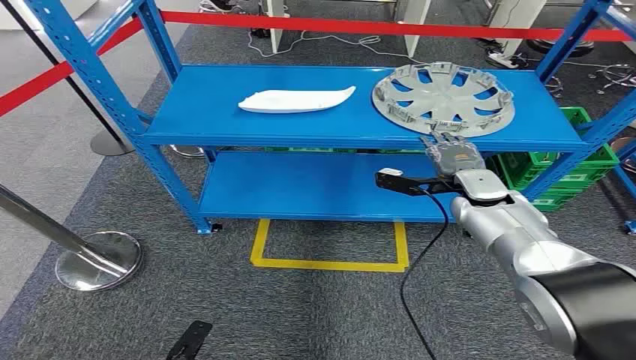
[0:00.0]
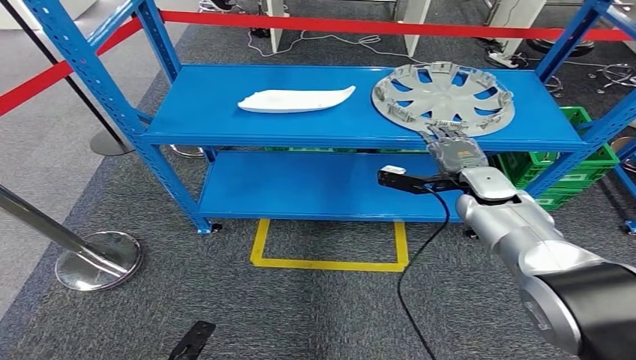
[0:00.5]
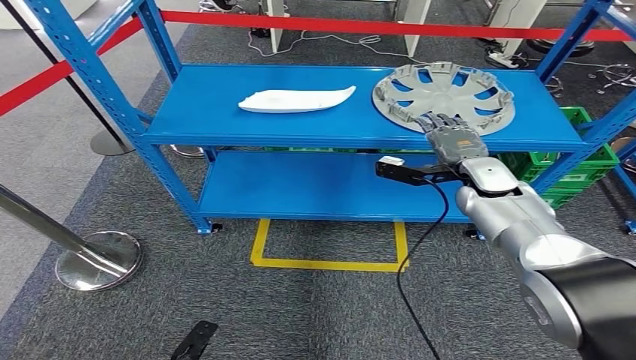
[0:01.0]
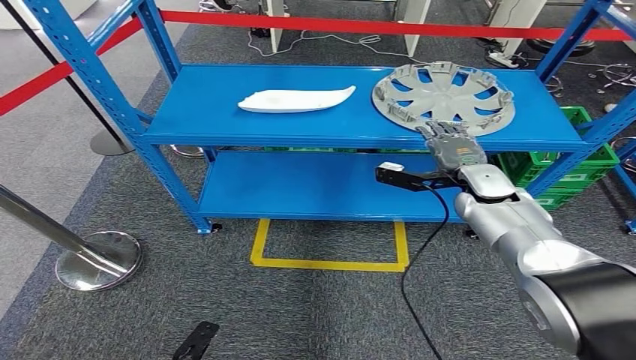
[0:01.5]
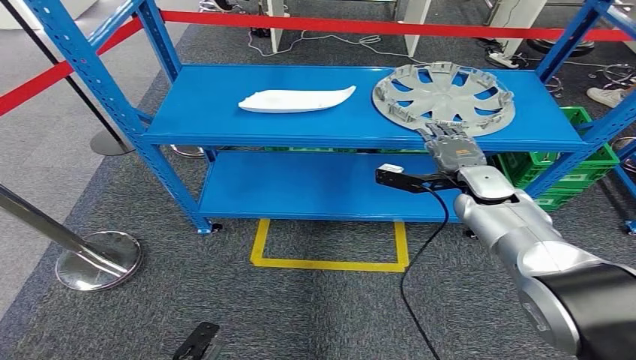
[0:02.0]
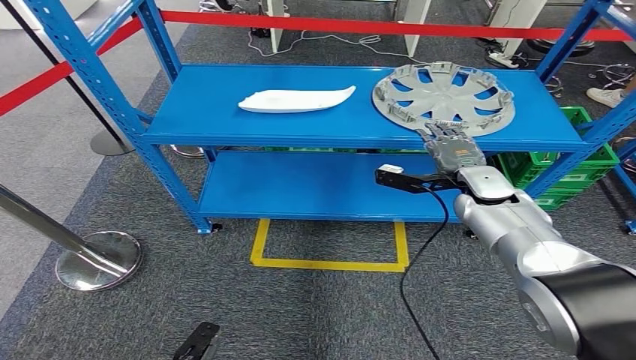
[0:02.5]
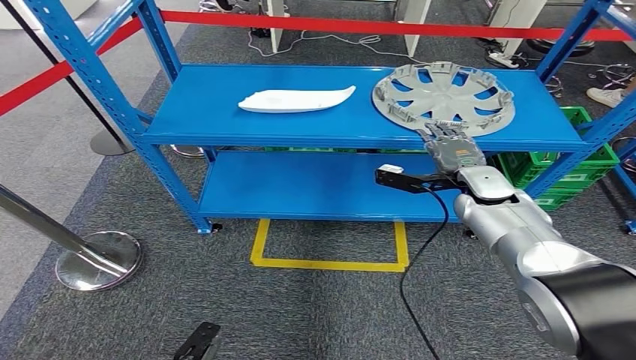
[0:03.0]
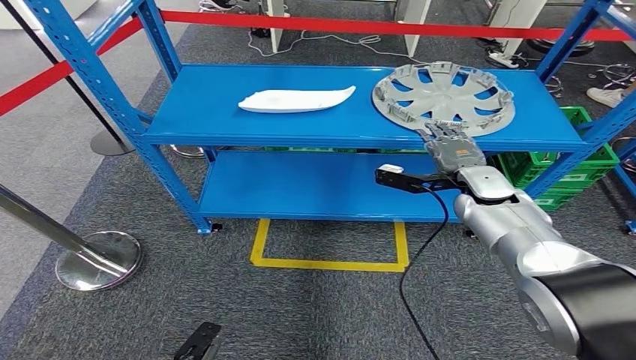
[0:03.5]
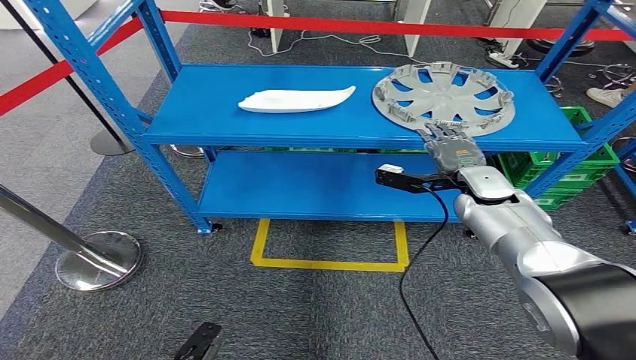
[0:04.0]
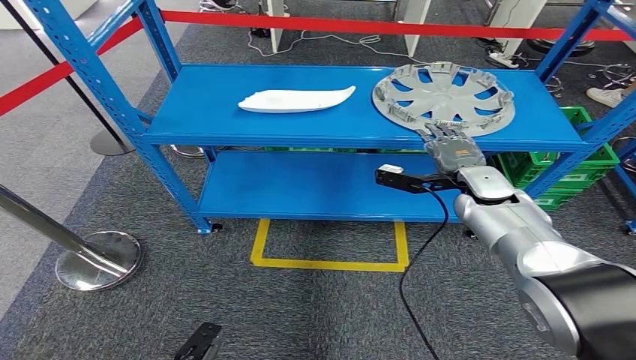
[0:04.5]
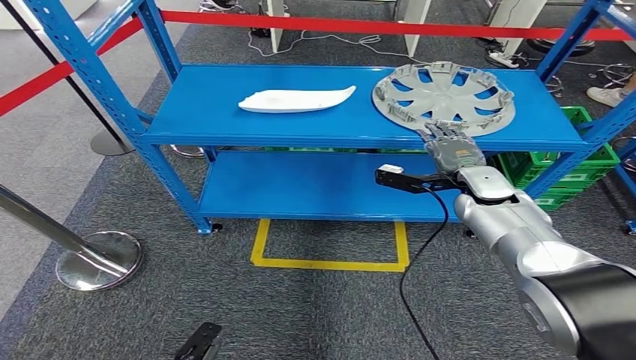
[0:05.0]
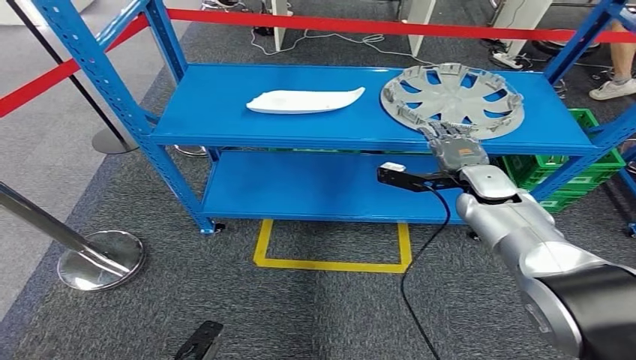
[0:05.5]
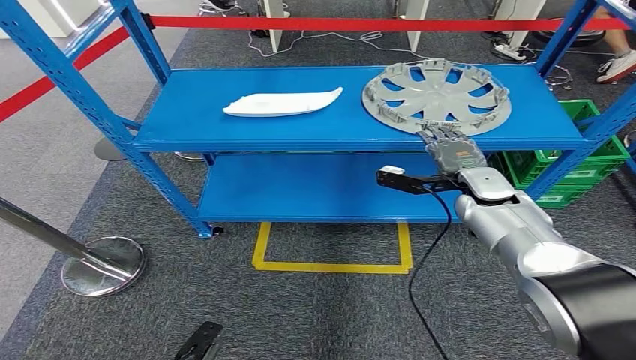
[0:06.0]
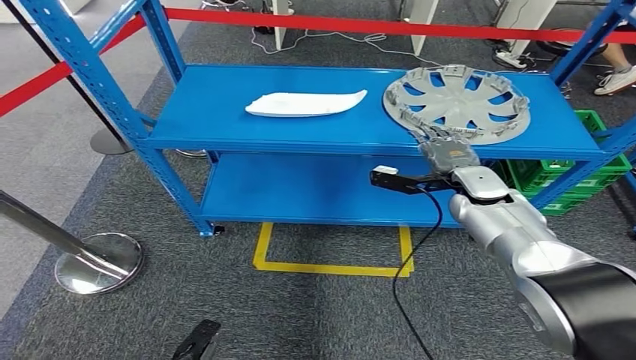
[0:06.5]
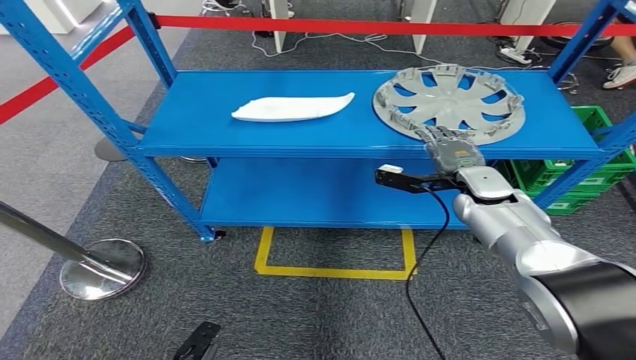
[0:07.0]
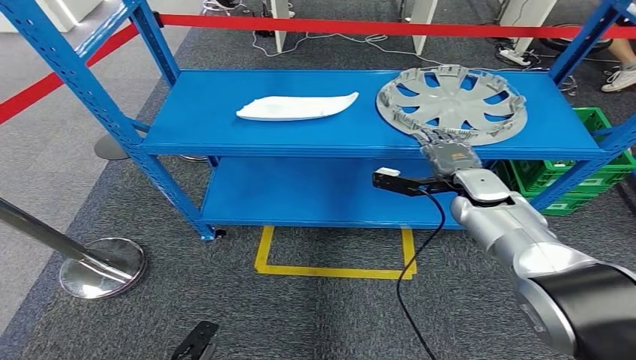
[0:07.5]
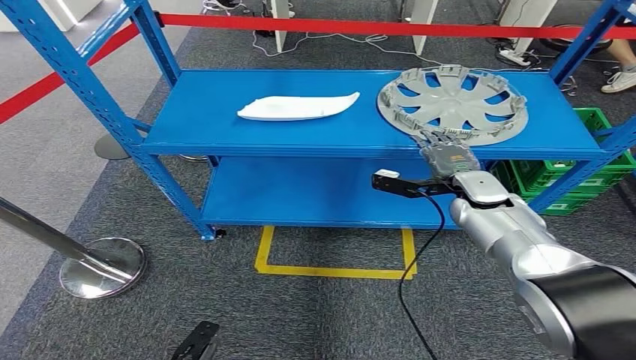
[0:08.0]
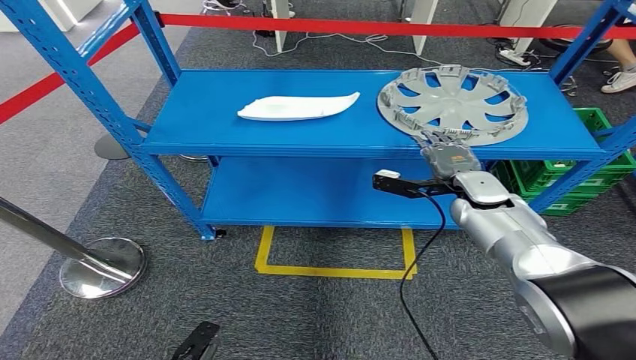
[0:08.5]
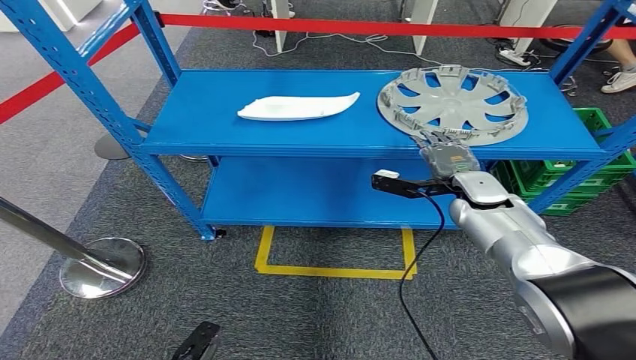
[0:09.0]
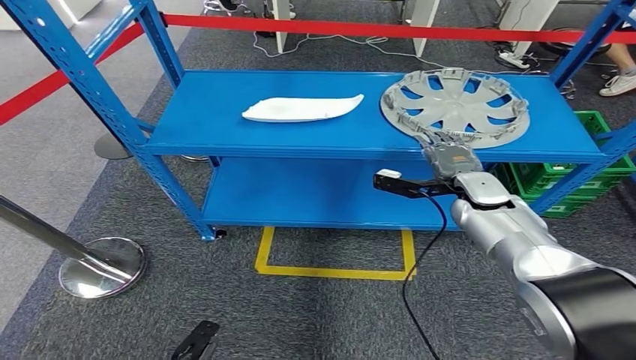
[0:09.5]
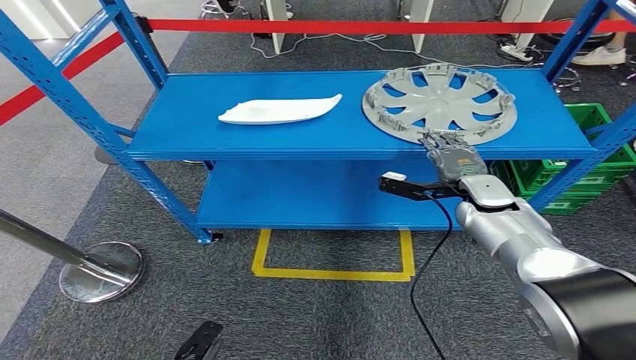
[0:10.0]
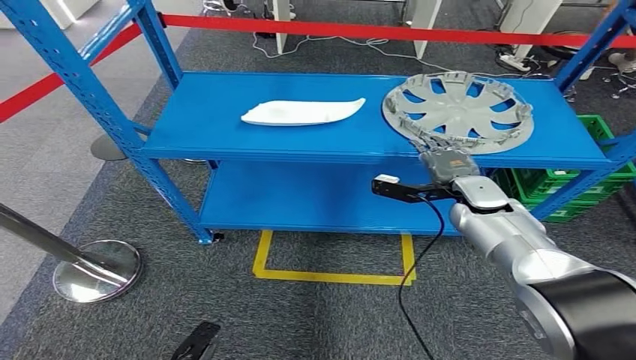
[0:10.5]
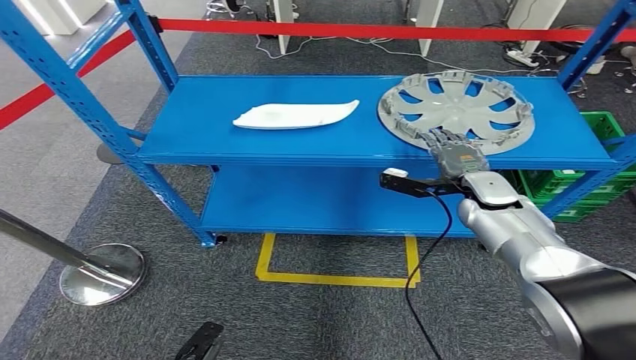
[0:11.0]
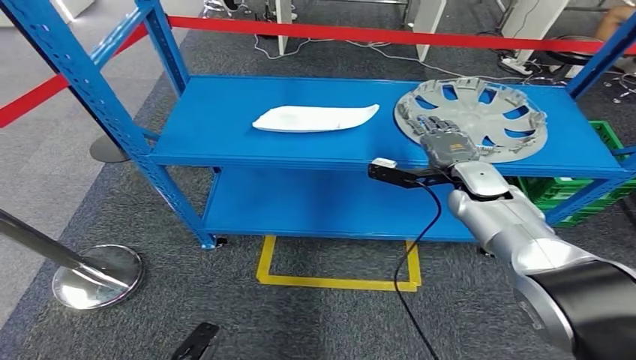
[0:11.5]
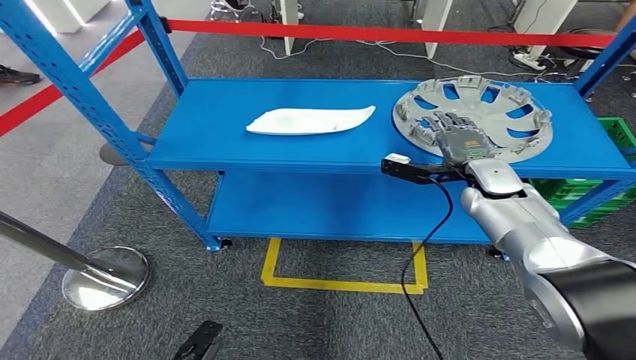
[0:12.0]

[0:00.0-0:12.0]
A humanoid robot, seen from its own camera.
0:02.0 to 0:04.0: The two hands keep their place.

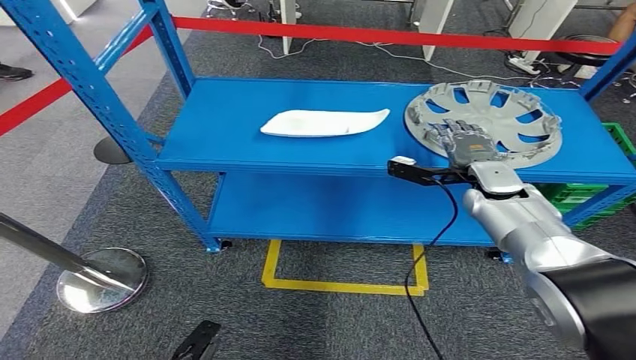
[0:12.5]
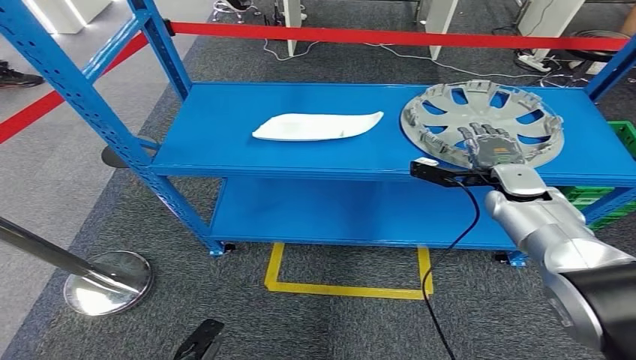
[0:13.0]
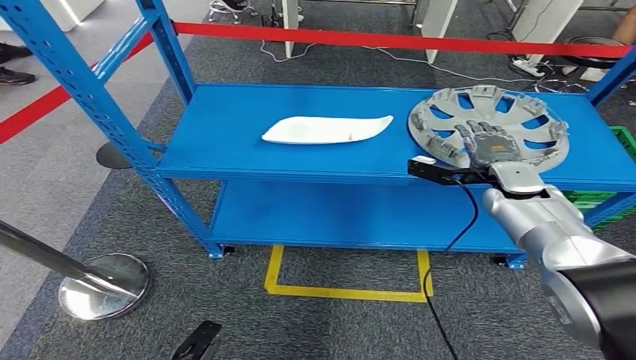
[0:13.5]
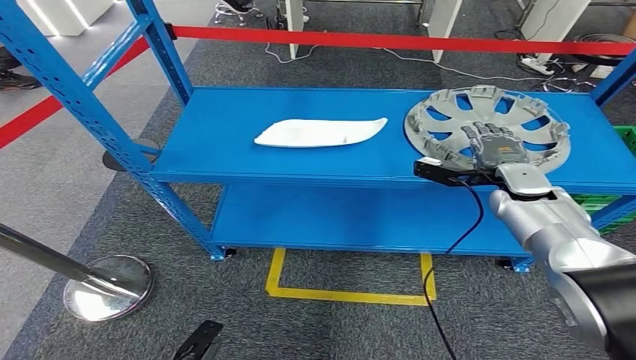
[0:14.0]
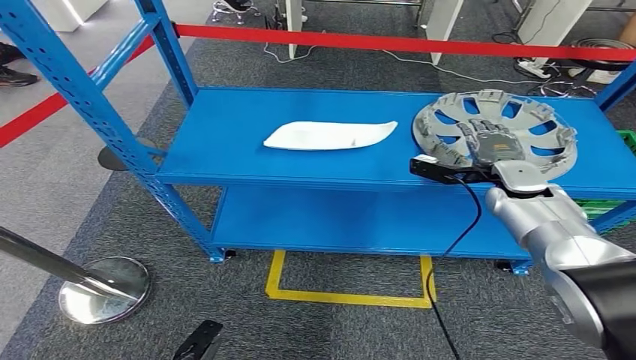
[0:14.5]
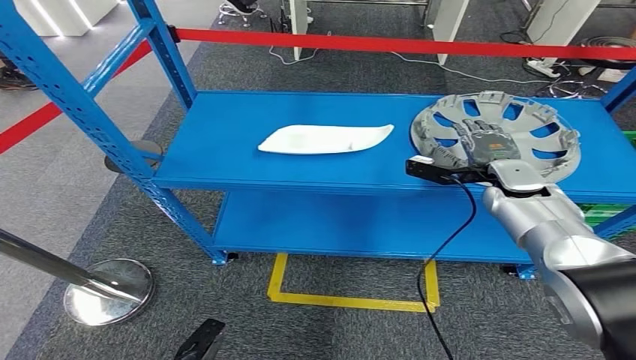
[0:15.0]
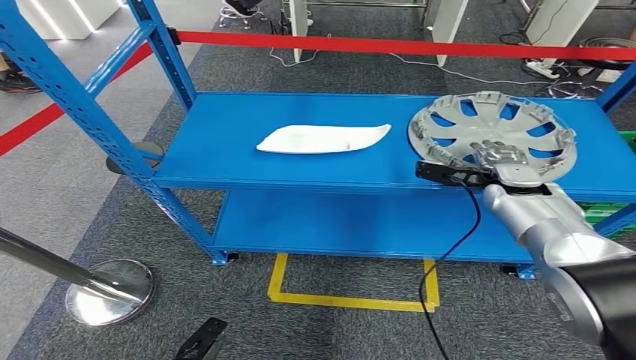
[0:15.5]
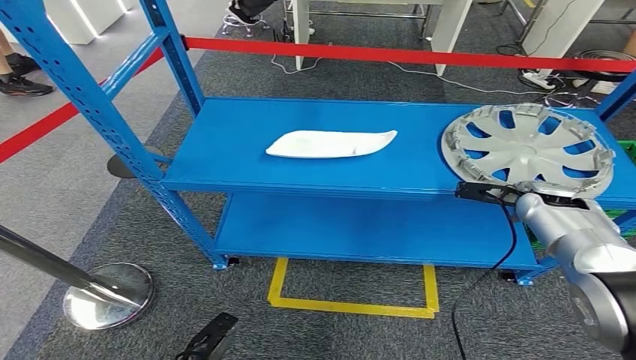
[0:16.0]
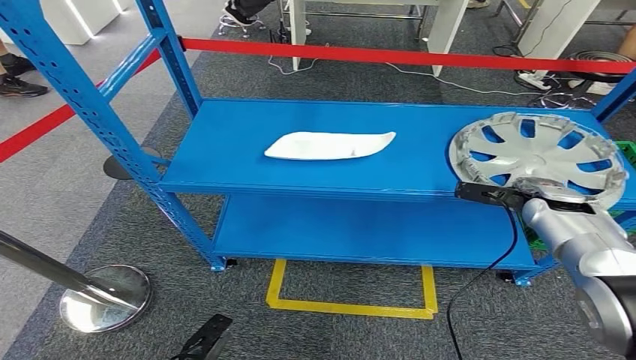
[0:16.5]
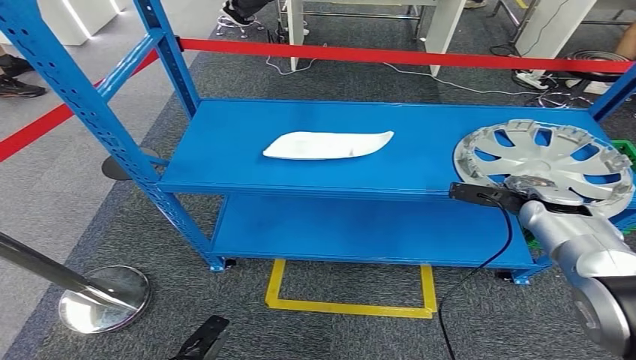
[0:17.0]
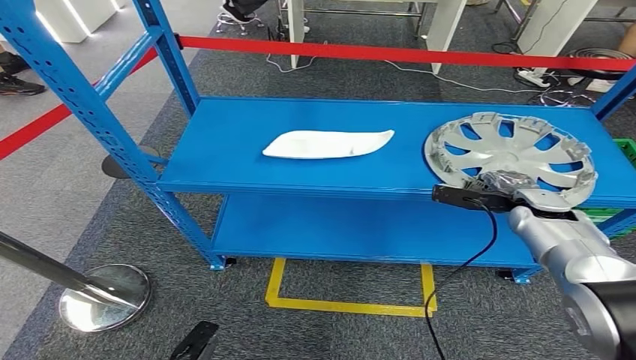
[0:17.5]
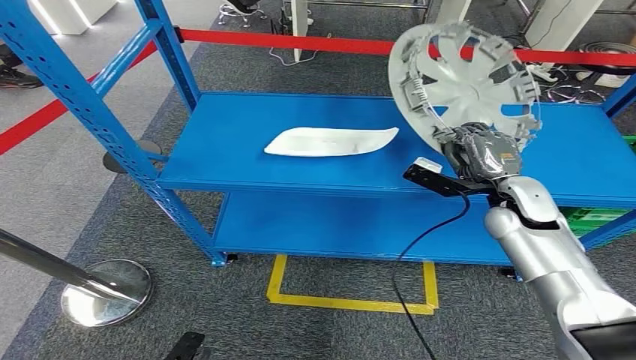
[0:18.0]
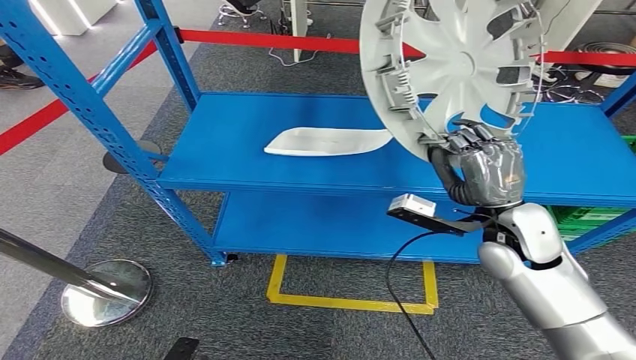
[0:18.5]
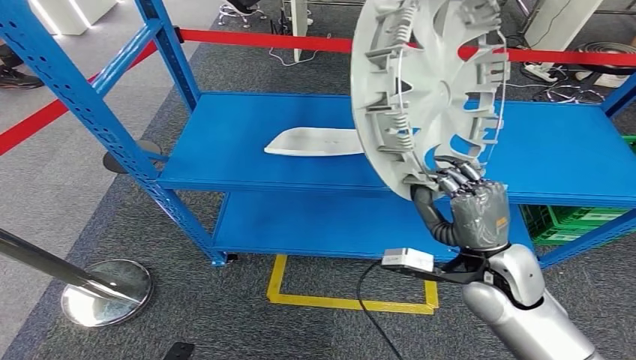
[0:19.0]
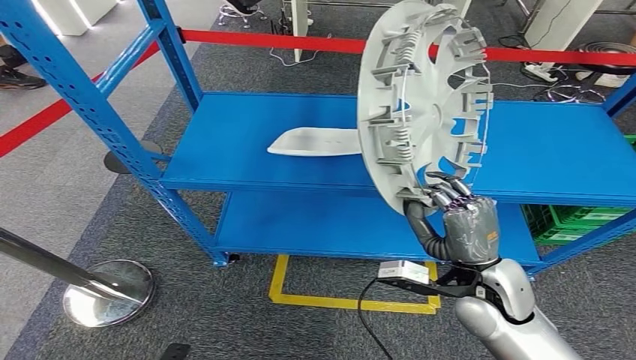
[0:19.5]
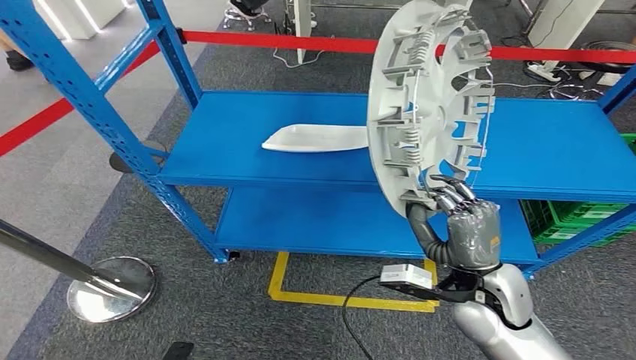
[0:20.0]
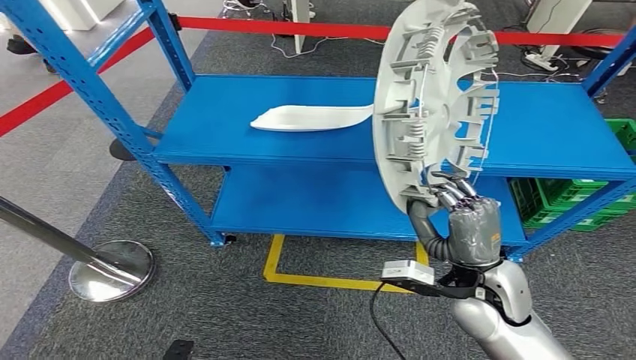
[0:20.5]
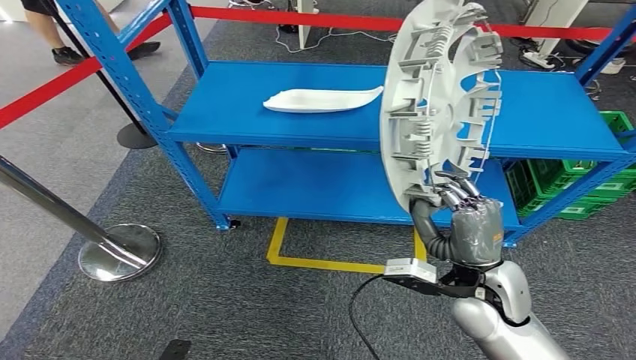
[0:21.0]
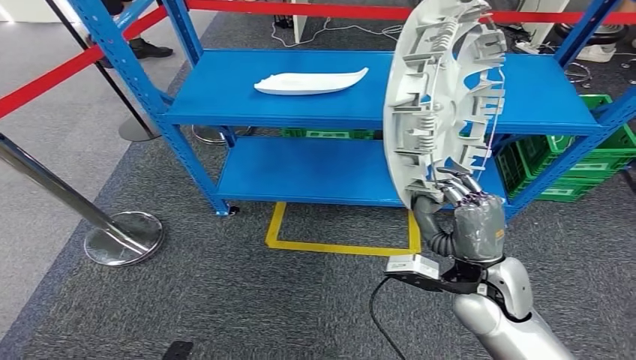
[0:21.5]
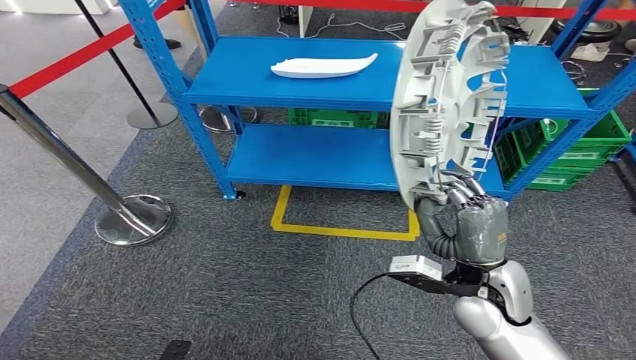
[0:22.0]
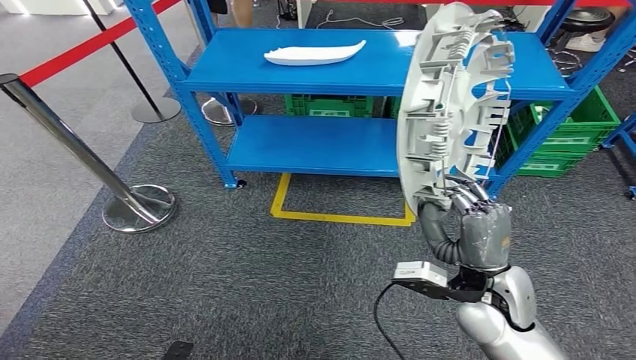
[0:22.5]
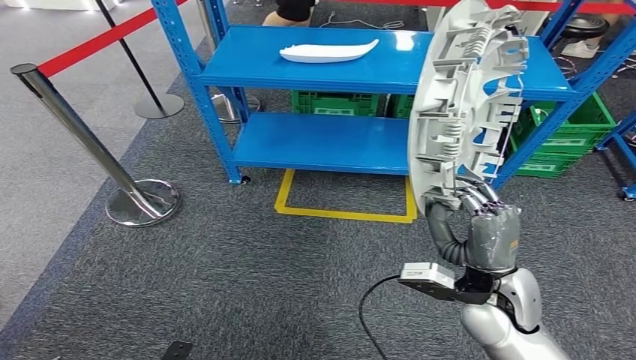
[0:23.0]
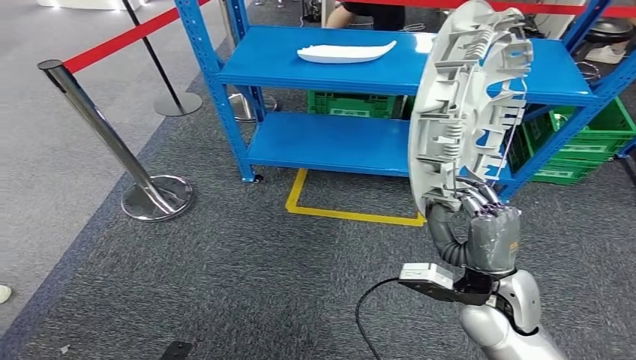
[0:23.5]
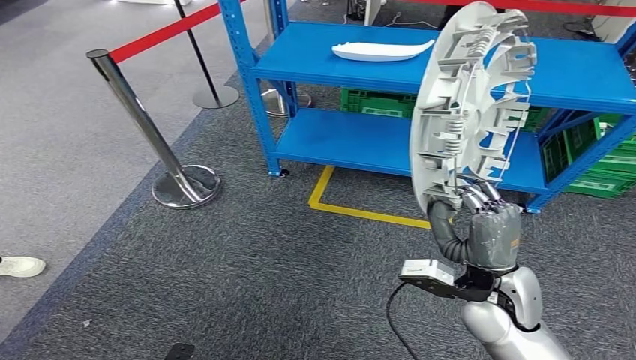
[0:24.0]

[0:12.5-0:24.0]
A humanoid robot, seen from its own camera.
Step, 0:12.5 to 0:18.5: Pick up the small component from the shelf.
